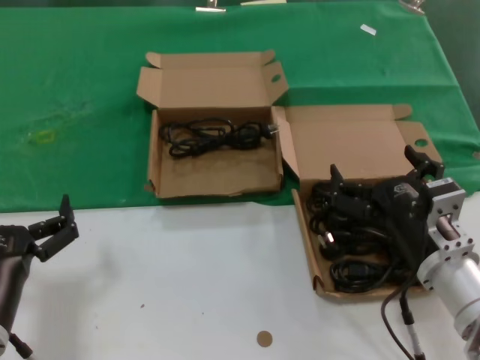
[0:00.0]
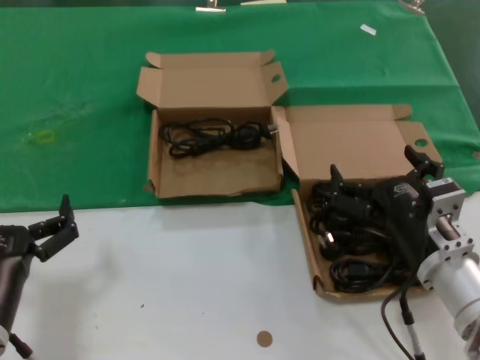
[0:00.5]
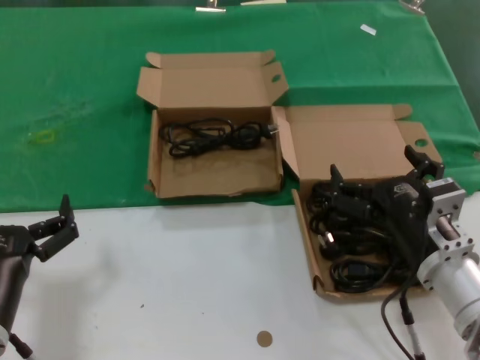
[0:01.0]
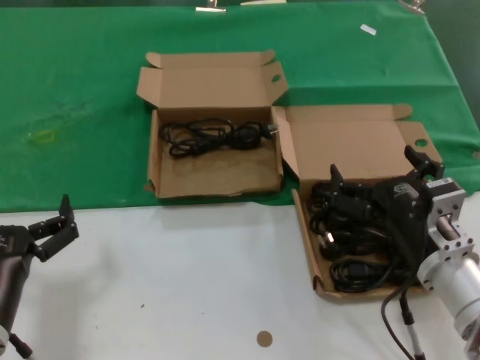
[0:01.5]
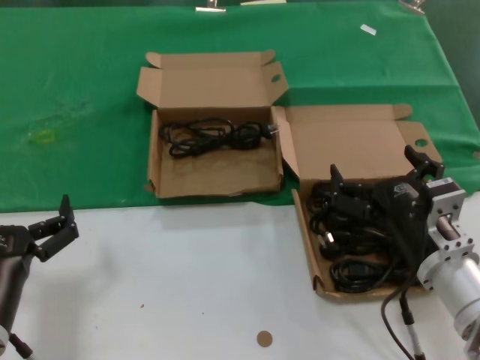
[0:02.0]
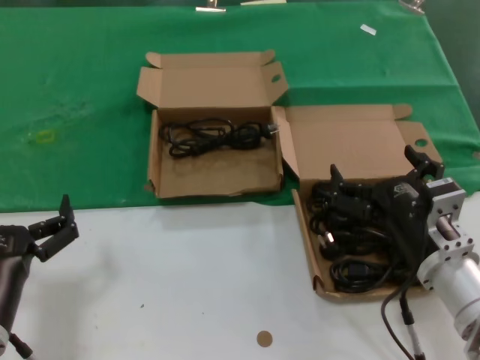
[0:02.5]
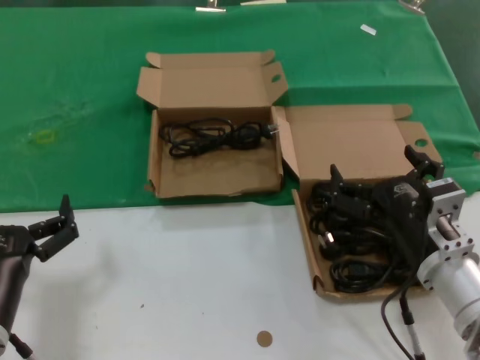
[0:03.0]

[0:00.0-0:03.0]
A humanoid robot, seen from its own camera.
Task of the whole recording: take the parts from the box containing them and put them into an empty box.
0:00.0 to 0:03.0: Both hands stay put.

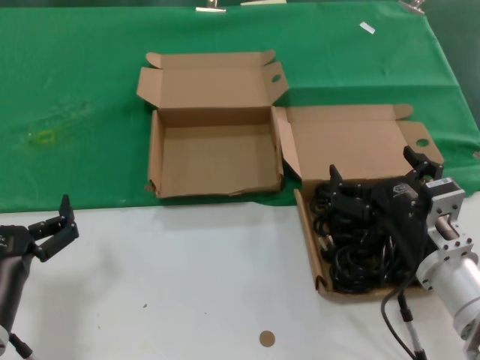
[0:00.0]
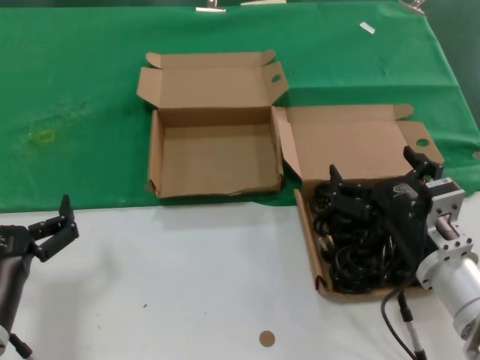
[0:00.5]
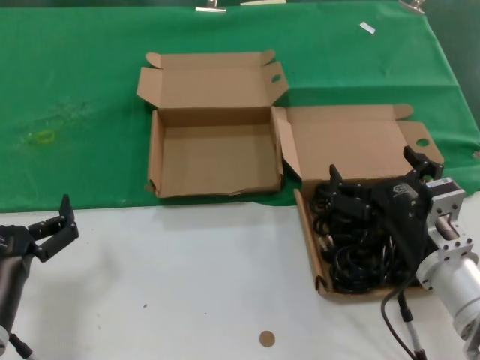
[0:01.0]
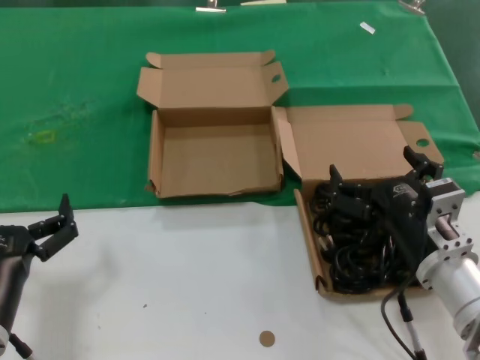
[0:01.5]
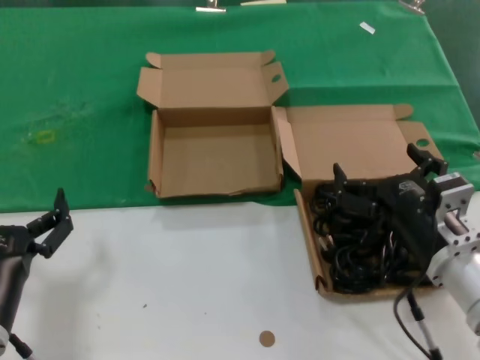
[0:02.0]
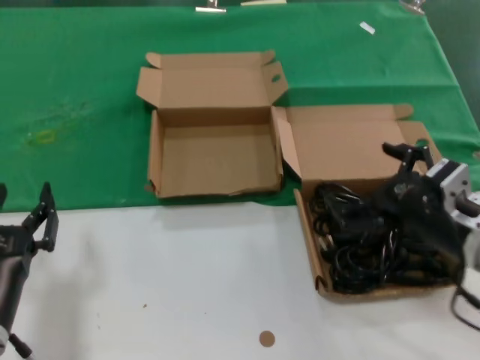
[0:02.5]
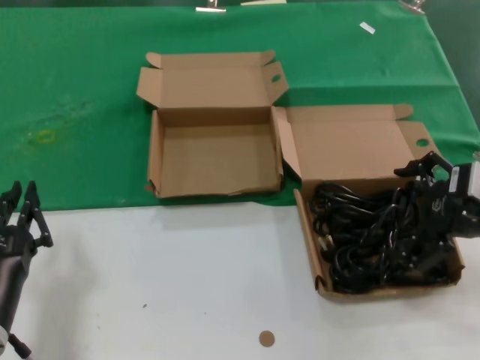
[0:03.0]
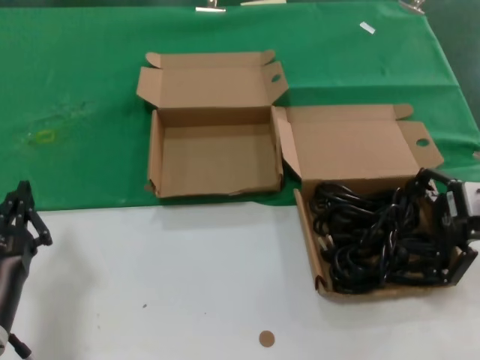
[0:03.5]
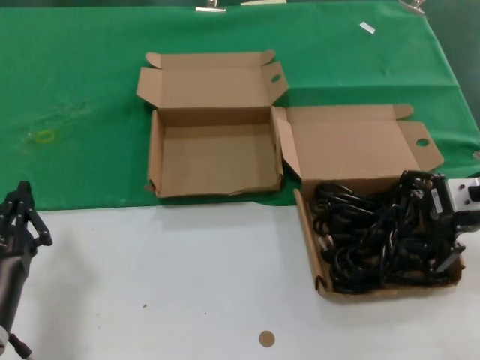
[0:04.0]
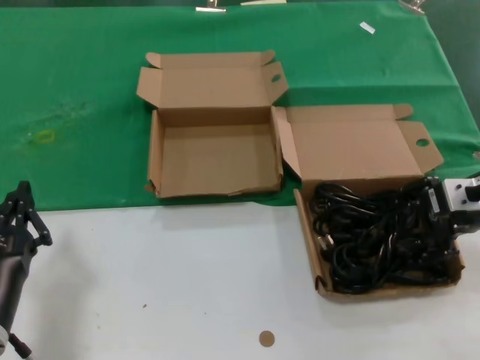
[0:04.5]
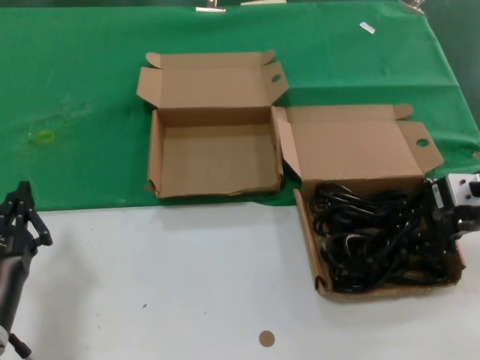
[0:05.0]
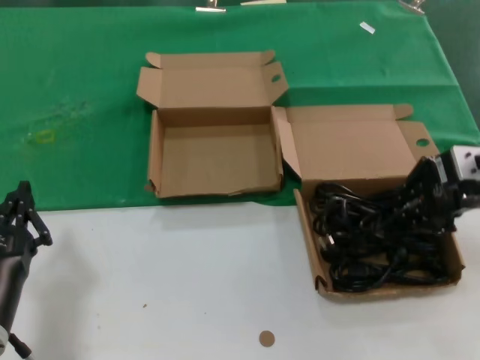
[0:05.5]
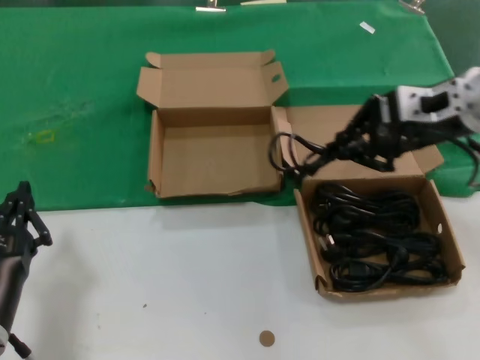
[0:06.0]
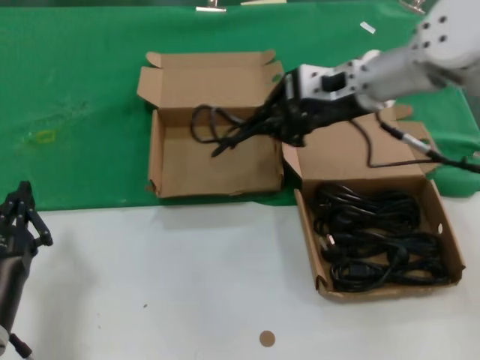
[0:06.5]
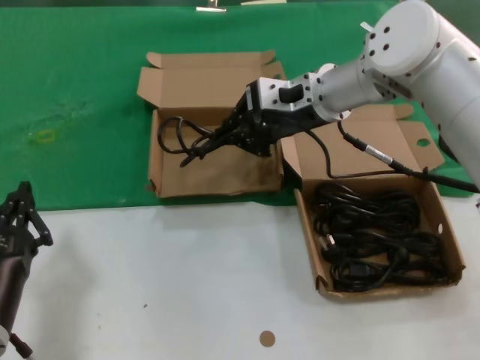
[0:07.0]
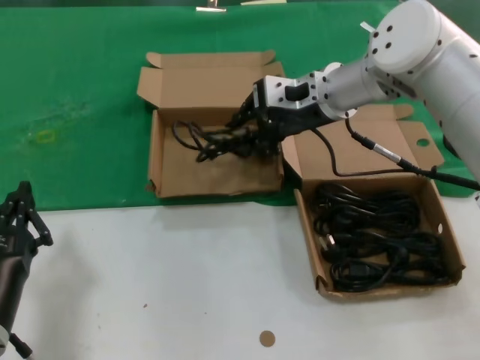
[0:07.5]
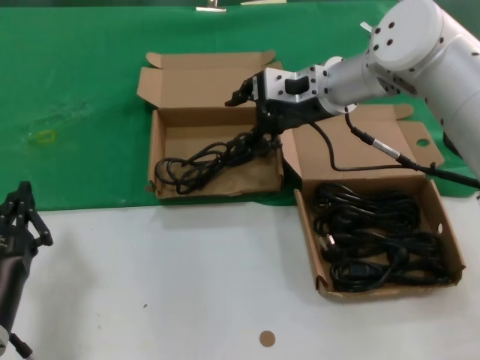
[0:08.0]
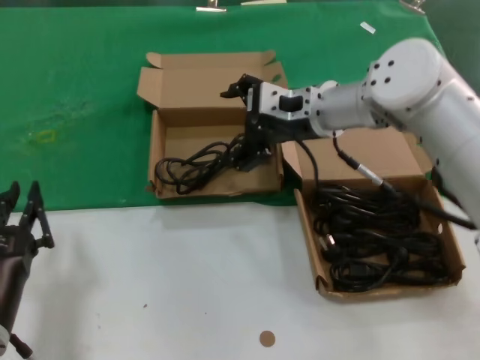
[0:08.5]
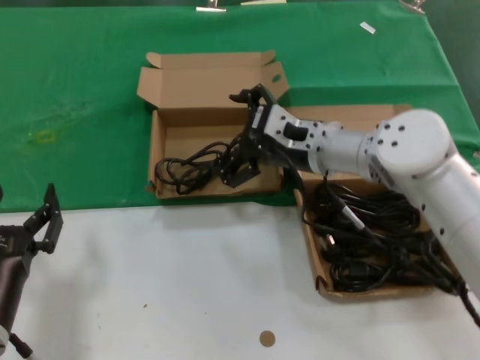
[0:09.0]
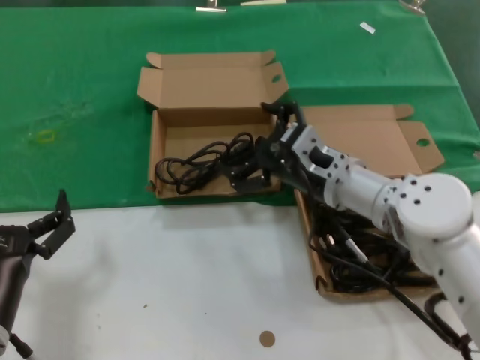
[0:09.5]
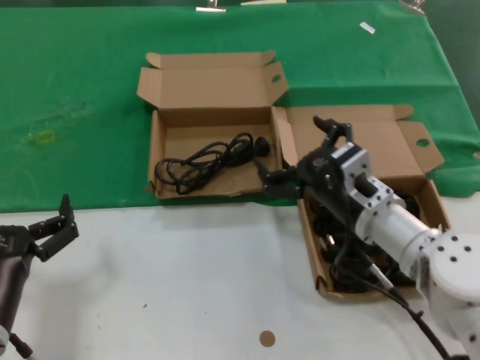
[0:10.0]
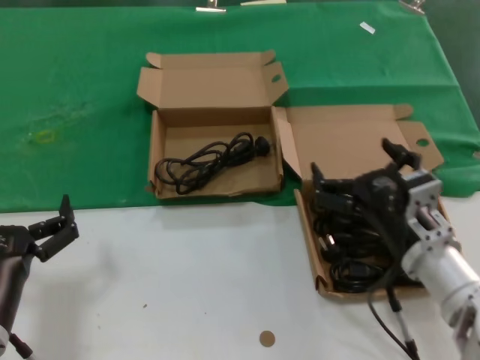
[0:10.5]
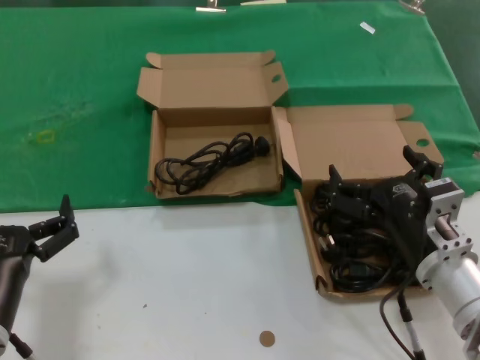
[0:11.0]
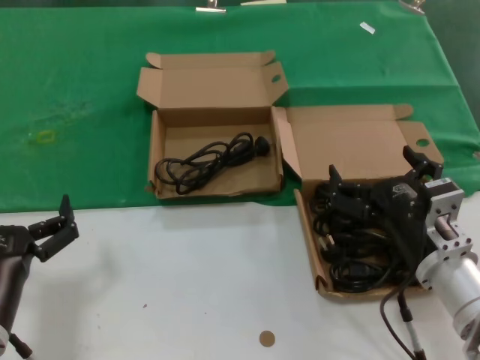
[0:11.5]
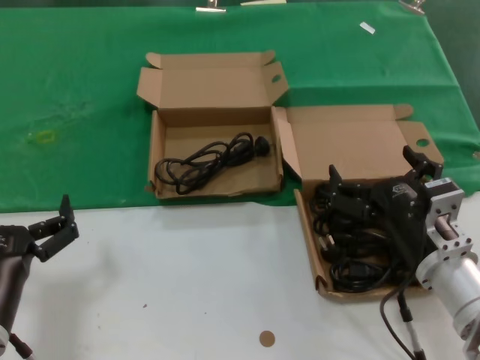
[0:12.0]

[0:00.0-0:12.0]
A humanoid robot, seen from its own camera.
Task of the whole recording: take the parts from the box containing them and put them into an empty box.
Step, 0:00.0 to 0:04.5: Grasp the data cable.
Step, 0:05.0 to 0:07.5: Place the data cable in the another box.
0:00.0 to 0:02.0: The two hands keep their place.
0:02.0 to 0:04.0: The right hand goes about 20 cm upward, to the right and forward.
0:04.0 to 0:06.0: The right hand heads upward and to the left, covering roughly 10 cm.
0:06.0 to 0:08.0: The right hand heads to the left and forward, covering roughly 15 cm.
0:08.0 to 0:10.0: The right hand moves downward and backward, roughly 25 cm.
0:10.0 to 0:12.0: The right hand goes roughly 10 cm backward.

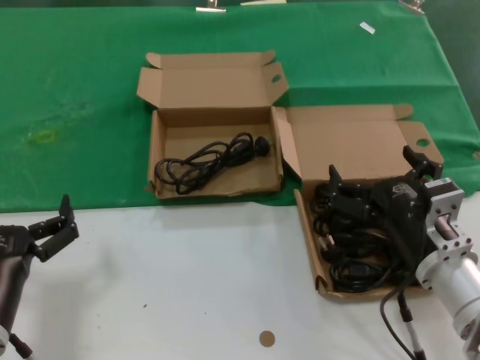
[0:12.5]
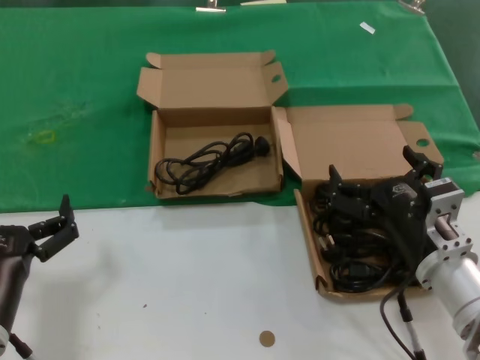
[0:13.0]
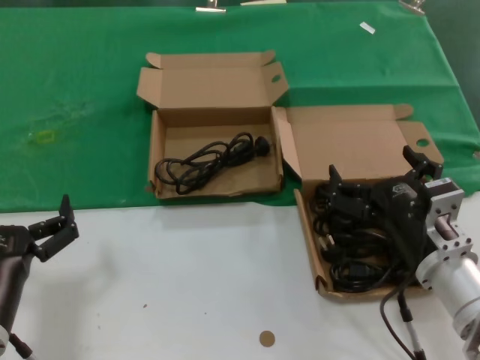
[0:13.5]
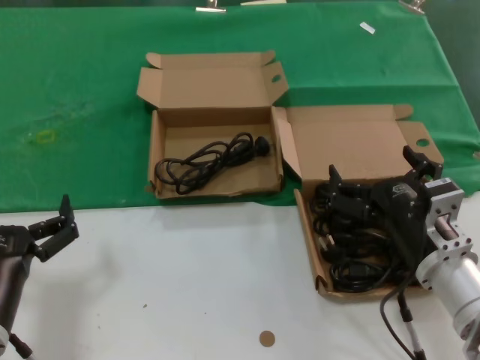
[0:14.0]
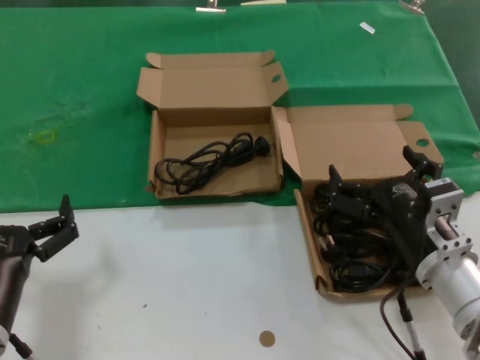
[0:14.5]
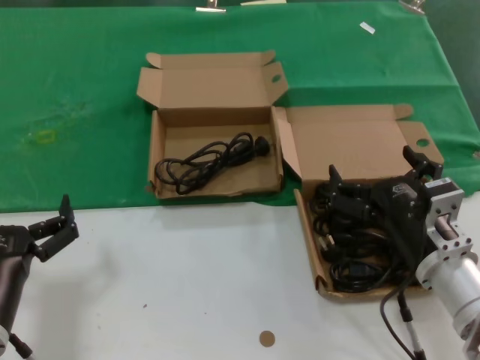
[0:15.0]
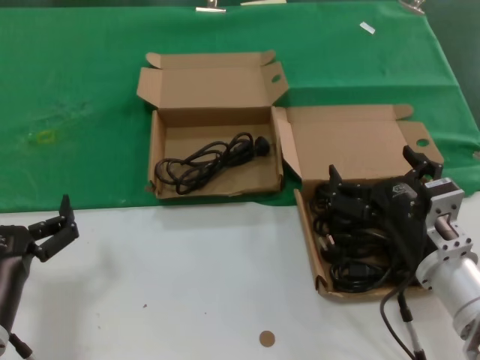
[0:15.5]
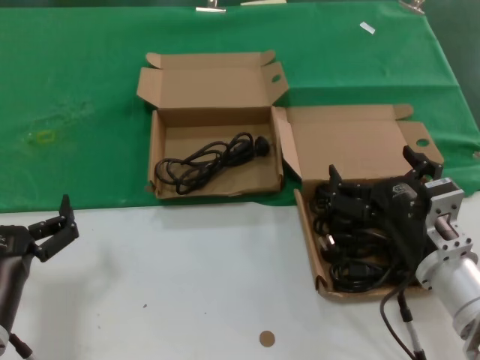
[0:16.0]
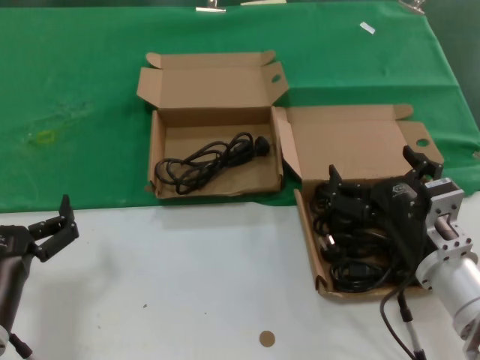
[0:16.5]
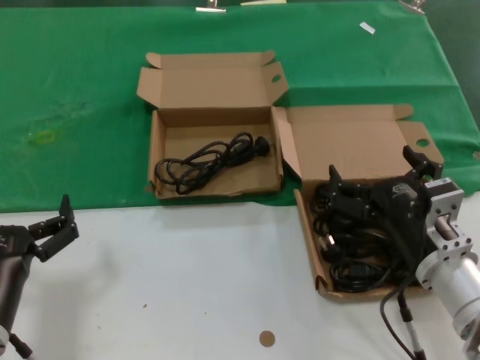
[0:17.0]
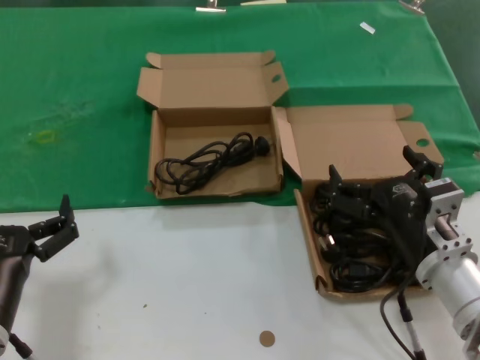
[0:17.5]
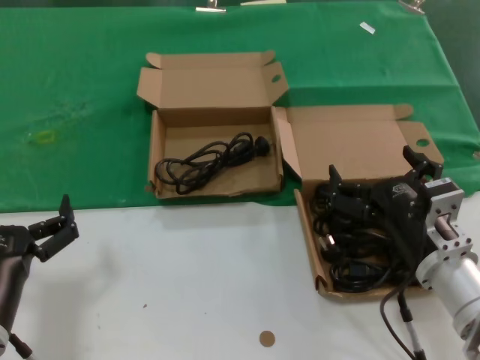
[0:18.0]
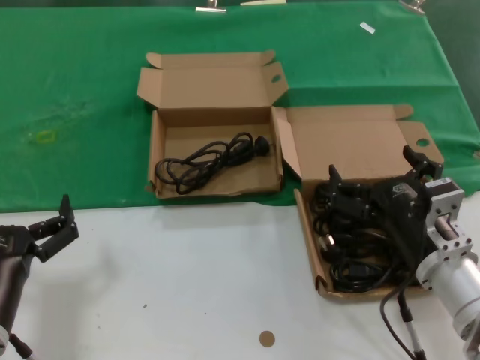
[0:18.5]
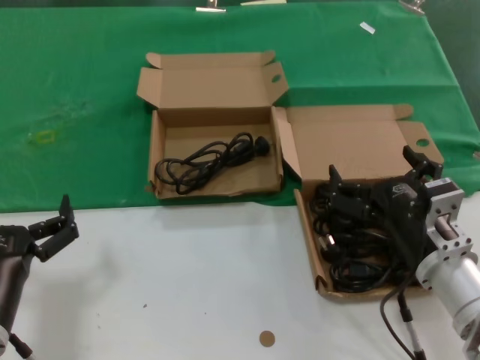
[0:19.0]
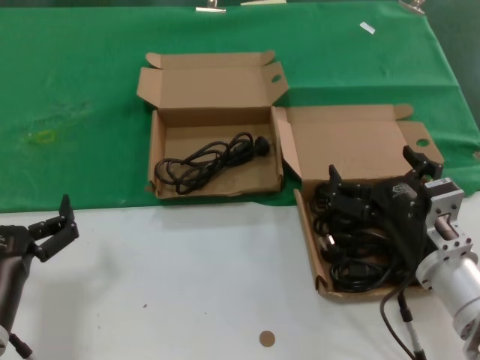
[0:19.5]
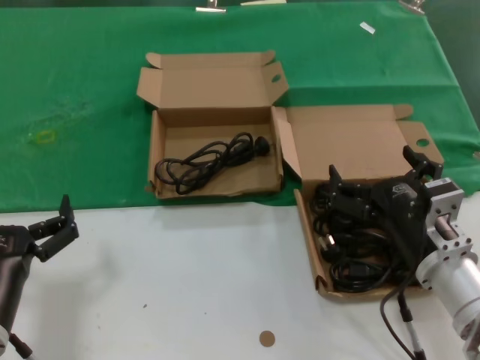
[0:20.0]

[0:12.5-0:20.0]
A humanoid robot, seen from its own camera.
Task of the whole recording: take the parts from the box containing them and put them into an empty box.
0:12.5 to 0:20.0: Both hands stay put.

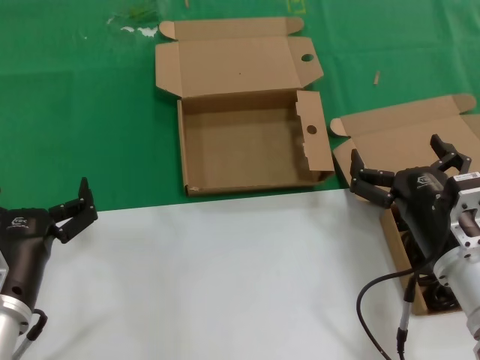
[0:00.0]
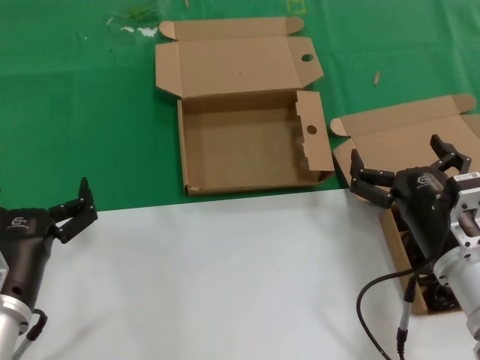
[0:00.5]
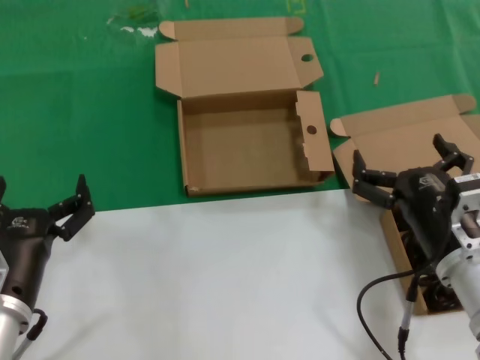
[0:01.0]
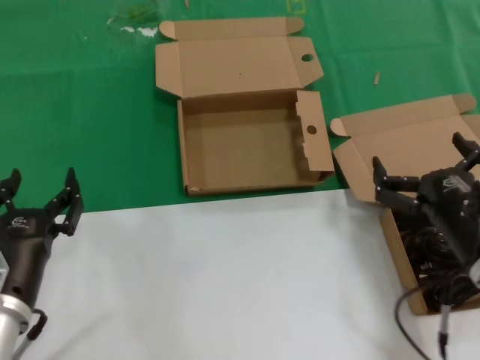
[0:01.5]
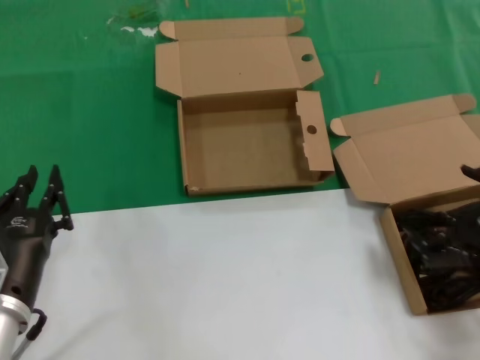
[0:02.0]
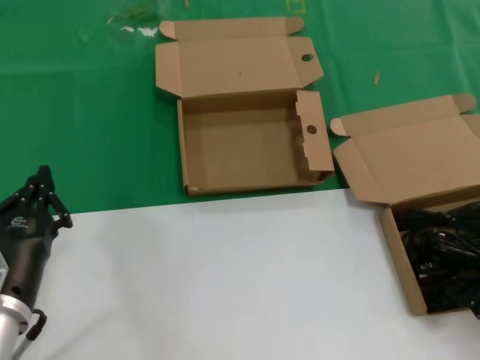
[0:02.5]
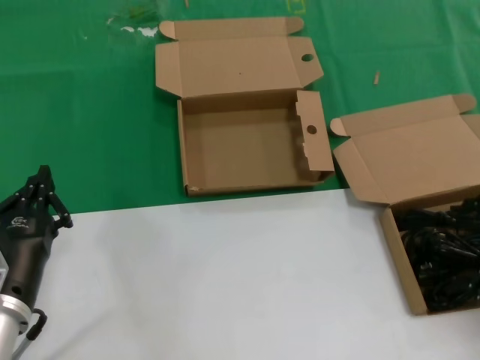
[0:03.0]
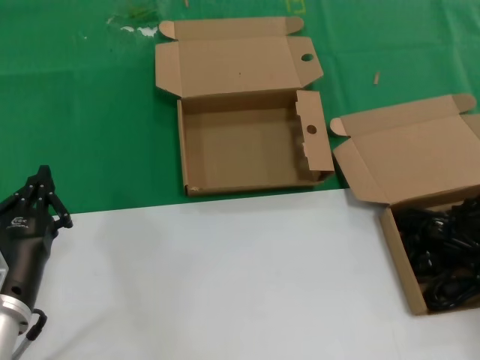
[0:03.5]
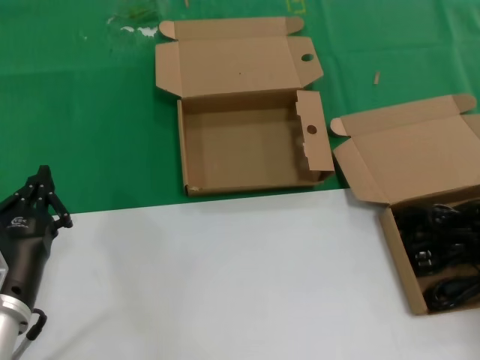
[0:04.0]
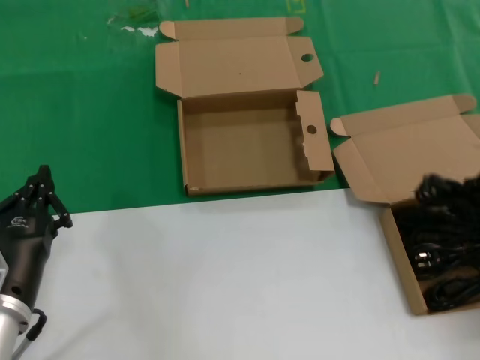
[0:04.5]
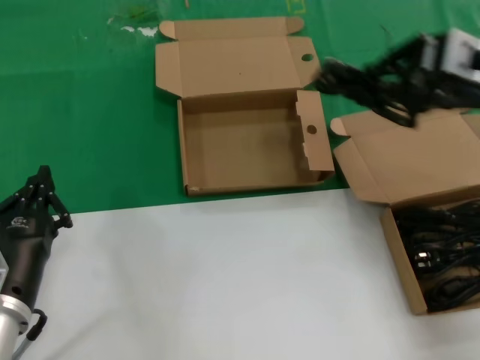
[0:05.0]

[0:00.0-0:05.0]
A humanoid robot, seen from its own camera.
Task of the whole recording: take the parts from the box containing them and put them into an empty box.
Step, 0:00.0 to 0:04.0: Grasp the data cable.
0:00.0 to 0:02.5: The right hand travels to the right and upward by some 20 cm.
0:02.5 to 0:05.0: The right hand is displaced upward, forward and to the left by roughly 25 cm.
